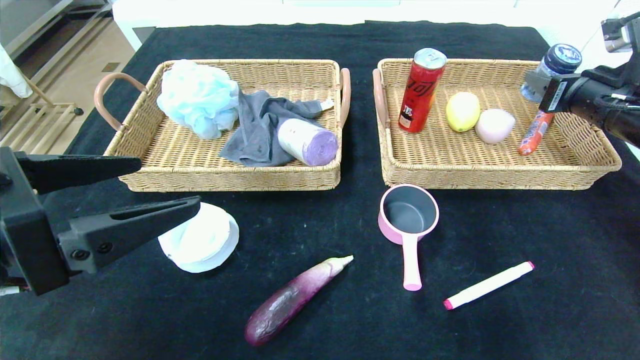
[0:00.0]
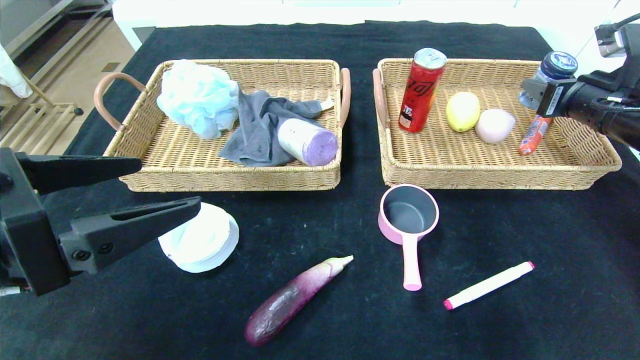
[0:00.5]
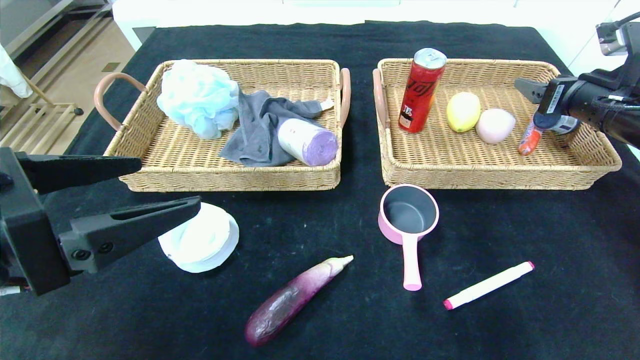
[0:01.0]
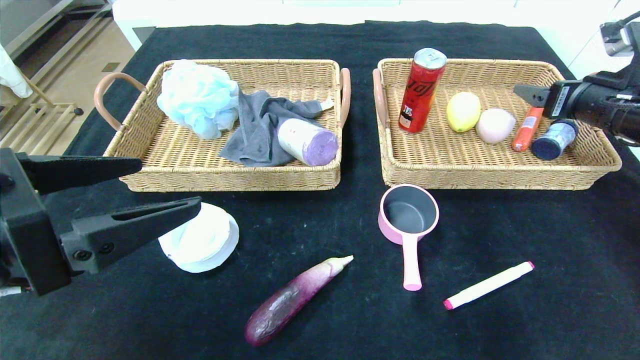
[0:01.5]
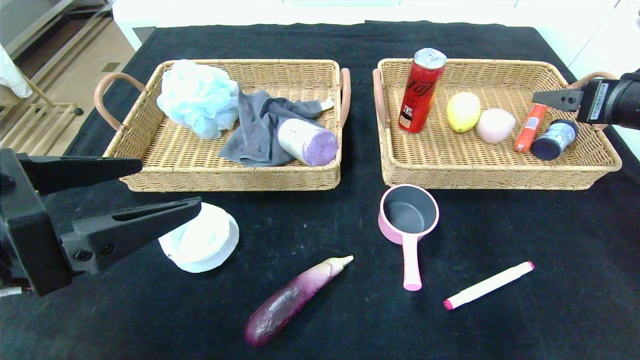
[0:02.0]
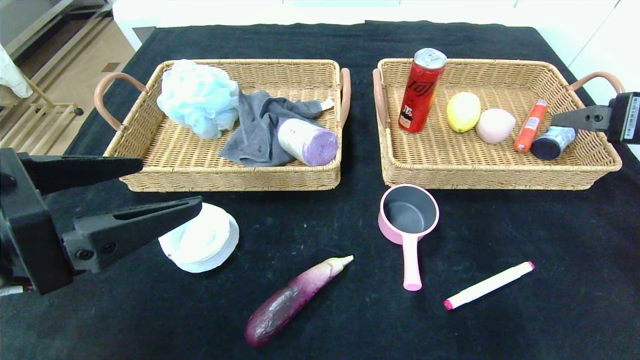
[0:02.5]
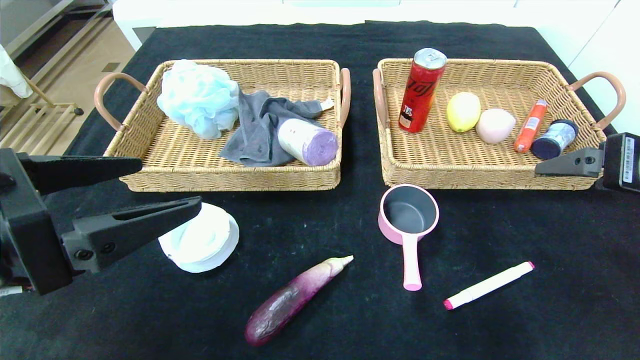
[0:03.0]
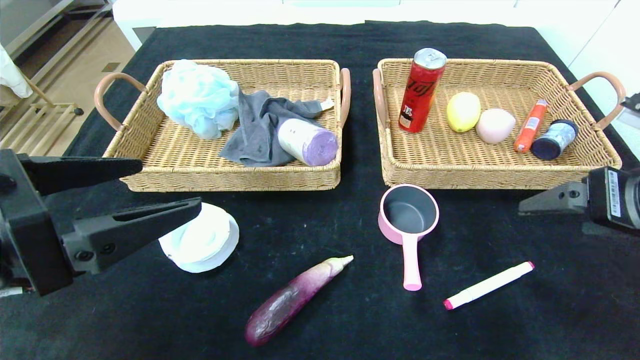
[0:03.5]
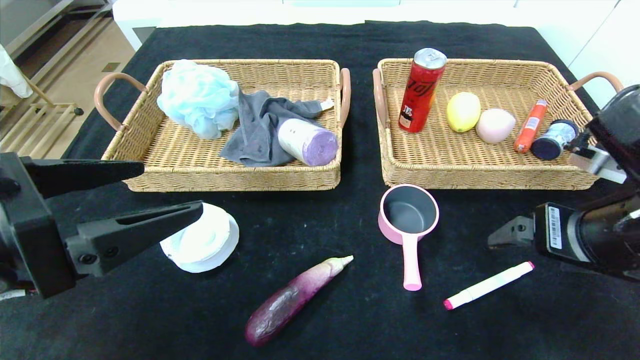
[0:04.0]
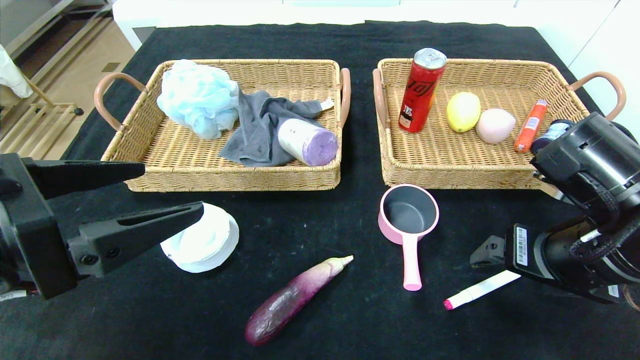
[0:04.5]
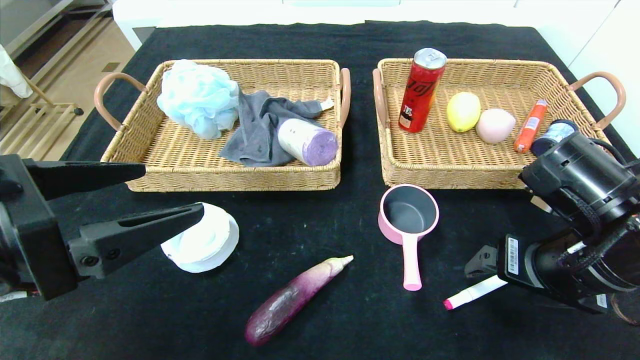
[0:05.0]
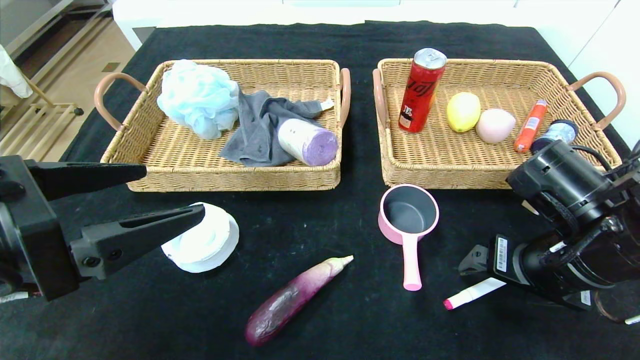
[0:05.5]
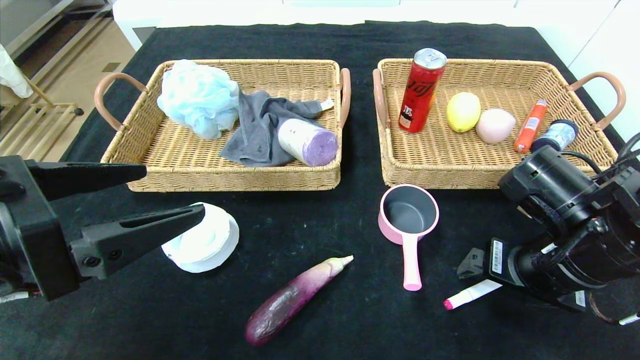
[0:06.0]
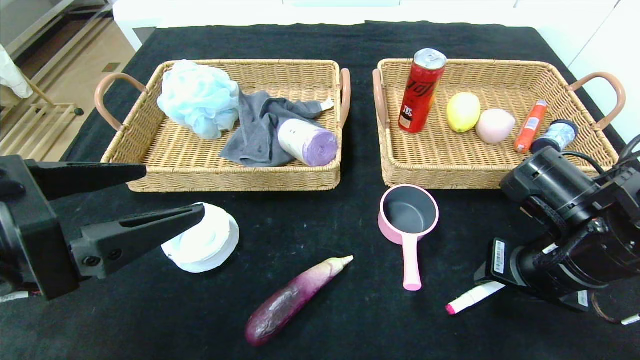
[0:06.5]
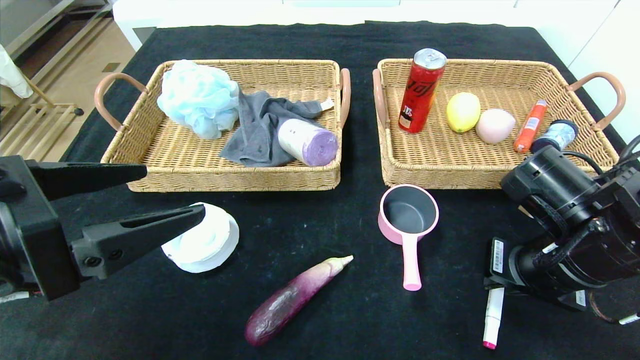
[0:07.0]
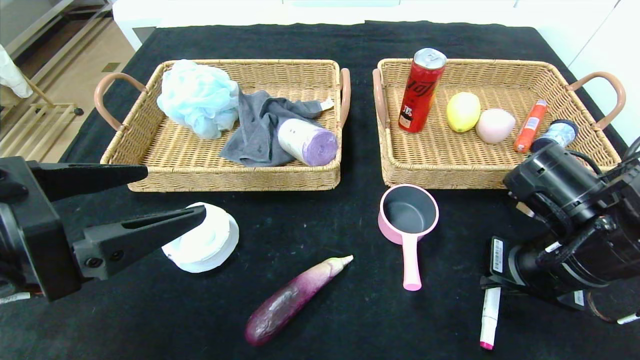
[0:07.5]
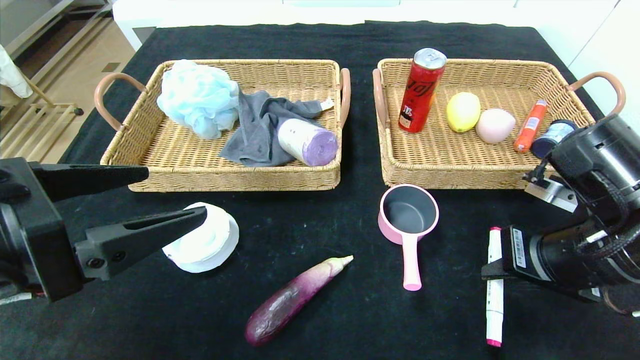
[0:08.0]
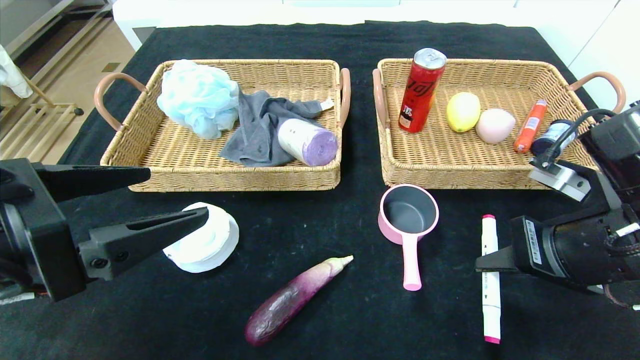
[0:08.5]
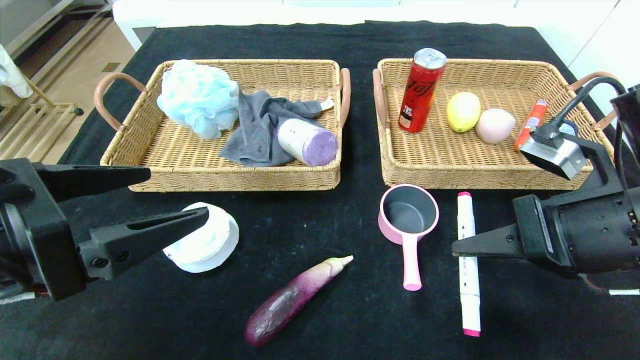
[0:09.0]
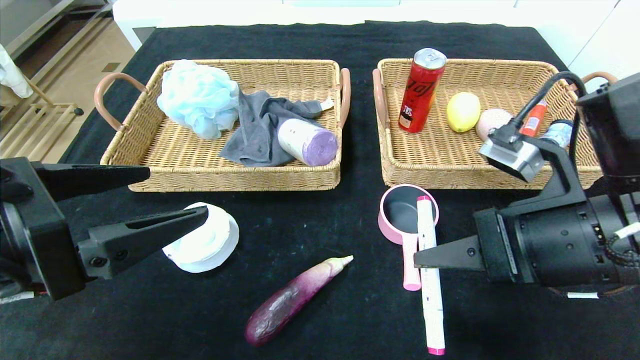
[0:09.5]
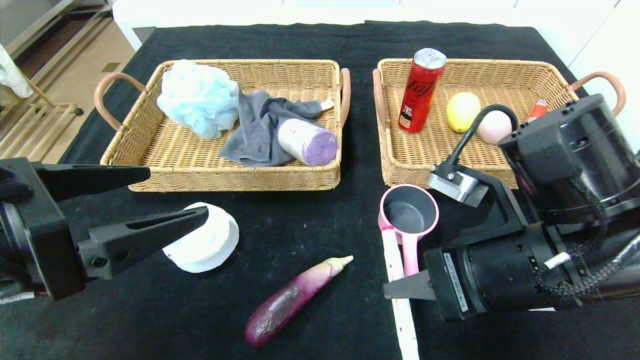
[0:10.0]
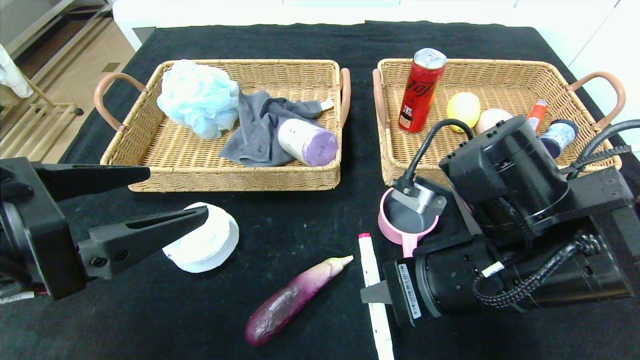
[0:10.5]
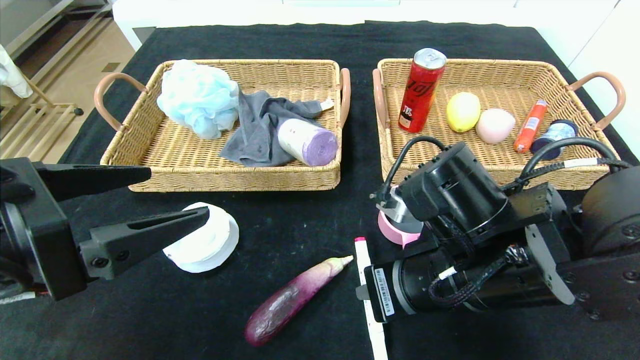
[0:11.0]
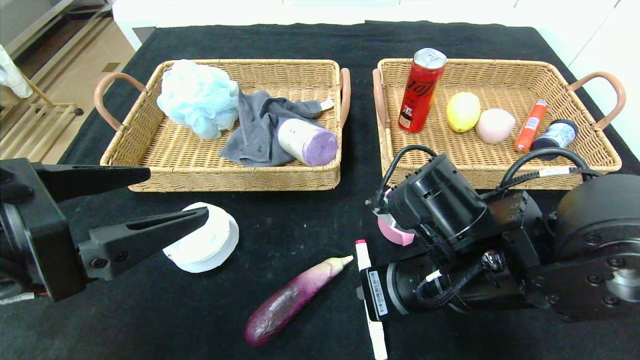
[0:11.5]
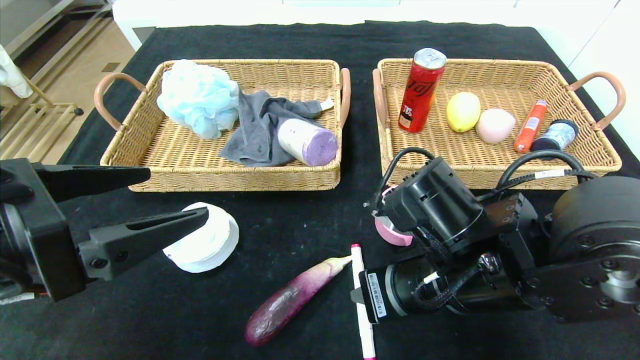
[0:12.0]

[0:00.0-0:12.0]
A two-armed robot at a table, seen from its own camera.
Step, 0:00.0 to 0:05.0: Place the pink marker in the center of the table.
0:00.0 to 0:02.0: The right gripper is displaced backward by approximately 5 cm, and opens up.
0:02.0 to 0:04.0: The right gripper moves to the left, backward and downward, about 15 cm.
0:04.0 to 0:06.0: The right gripper travels downward by some 5 cm.
0:06.0 to 0:08.0: The right gripper closes up.
0:08.0 to 0:10.0: The right gripper travels to the left by approximately 10 cm.
0:10.0 to 0:12.0: The right gripper heads to the left, covering roughly 5 cm.

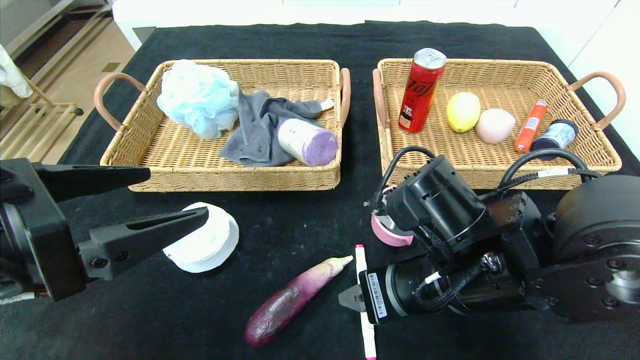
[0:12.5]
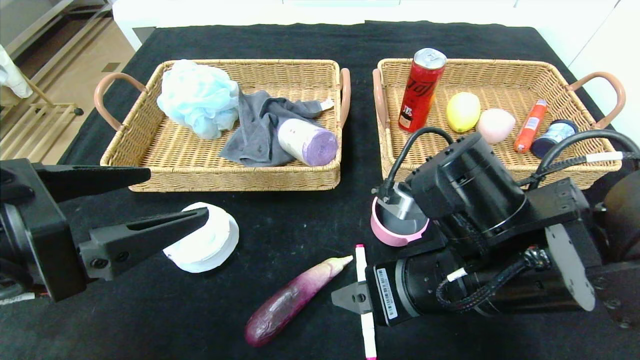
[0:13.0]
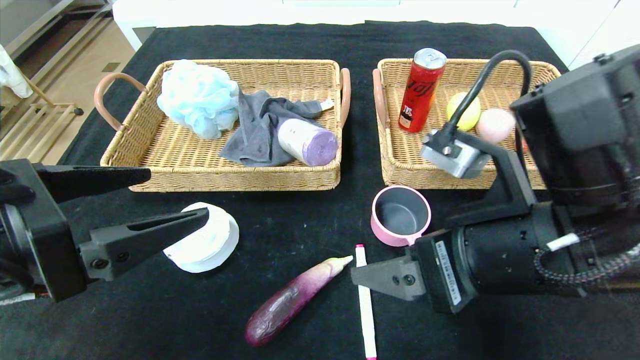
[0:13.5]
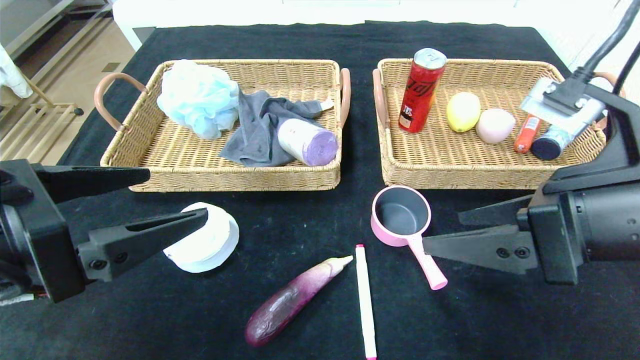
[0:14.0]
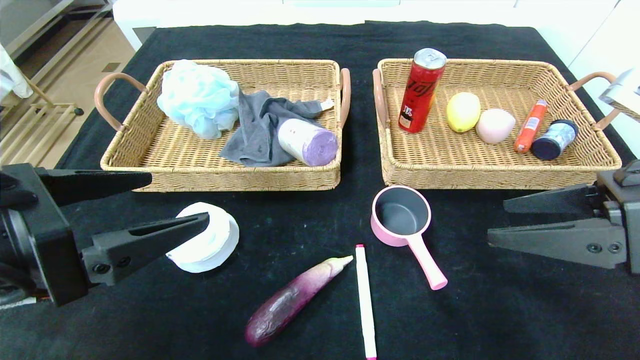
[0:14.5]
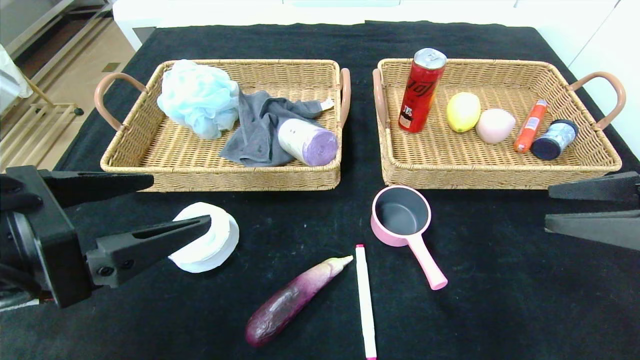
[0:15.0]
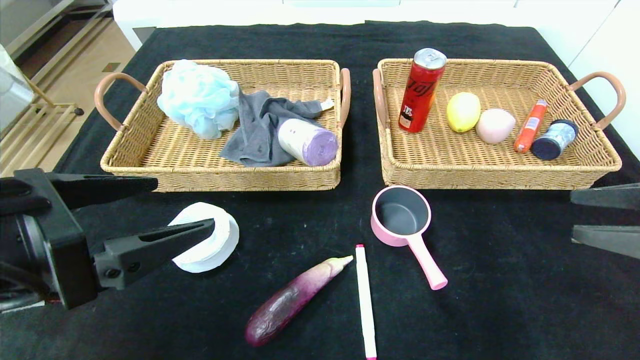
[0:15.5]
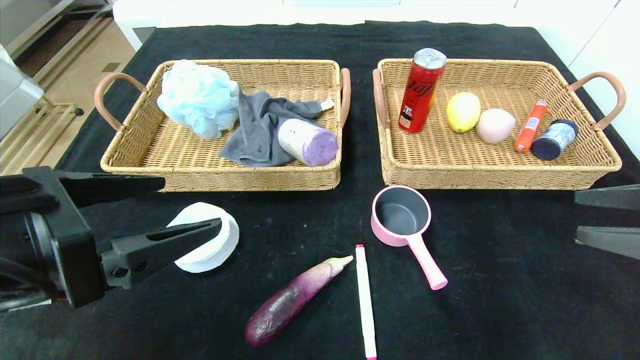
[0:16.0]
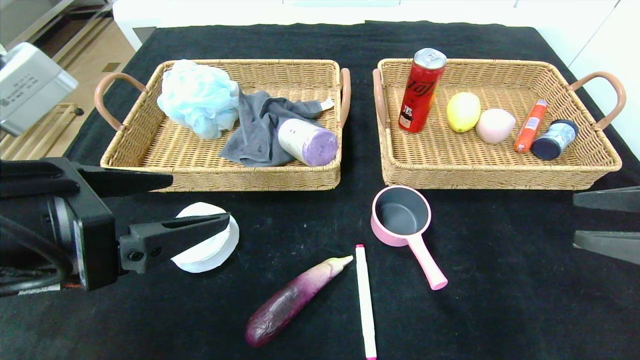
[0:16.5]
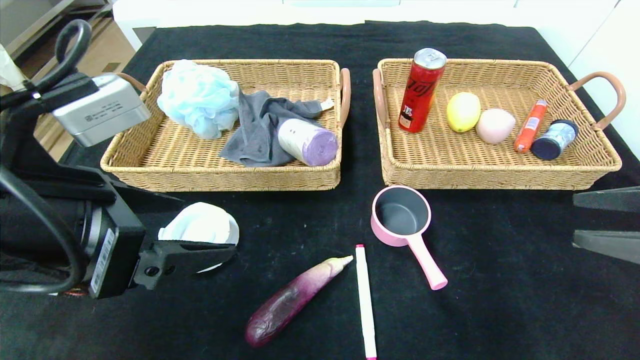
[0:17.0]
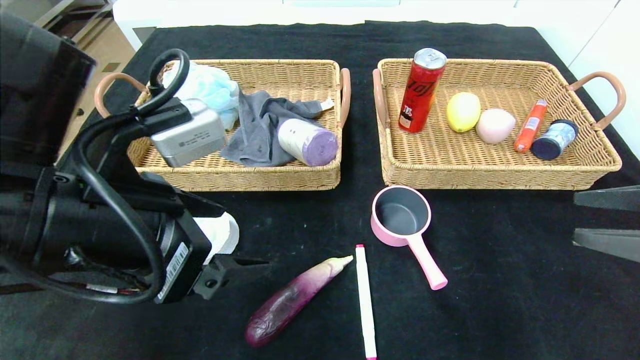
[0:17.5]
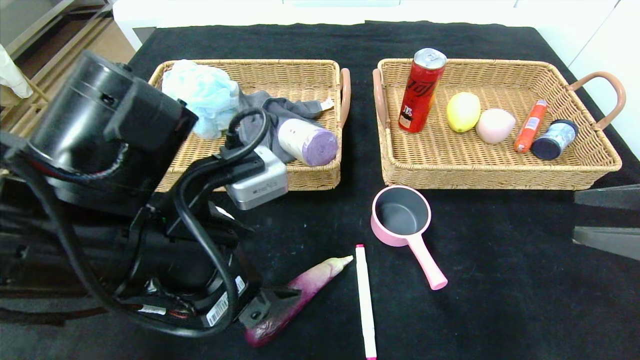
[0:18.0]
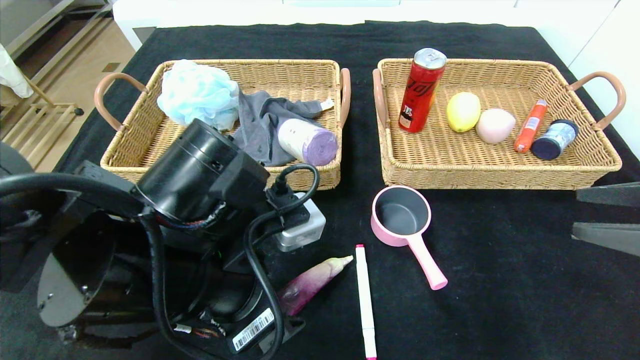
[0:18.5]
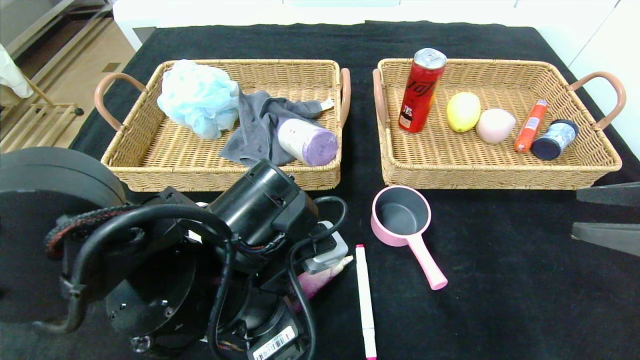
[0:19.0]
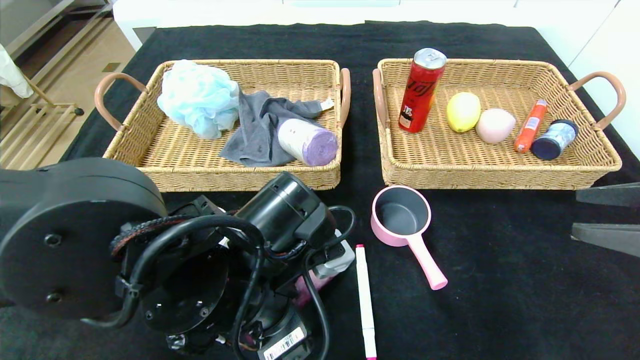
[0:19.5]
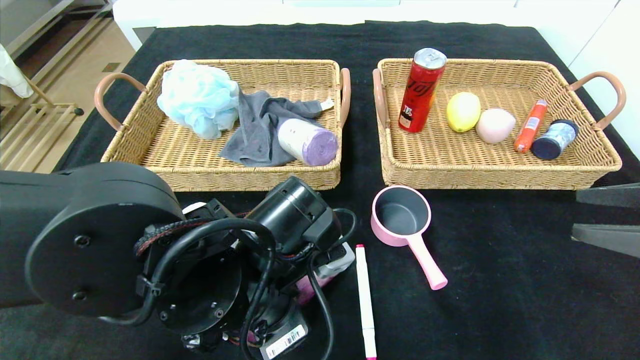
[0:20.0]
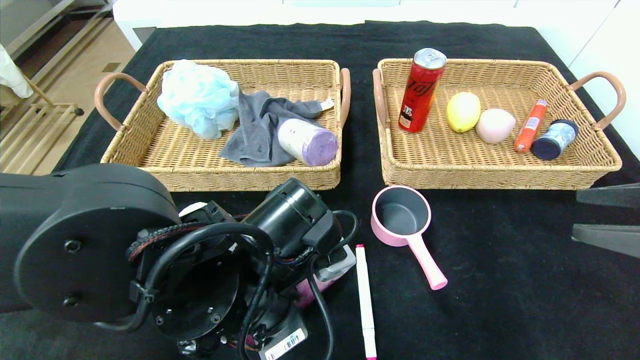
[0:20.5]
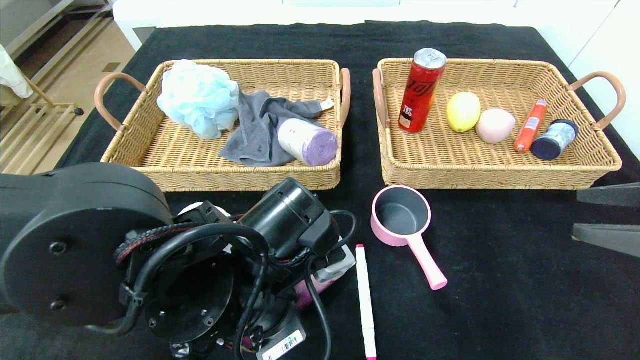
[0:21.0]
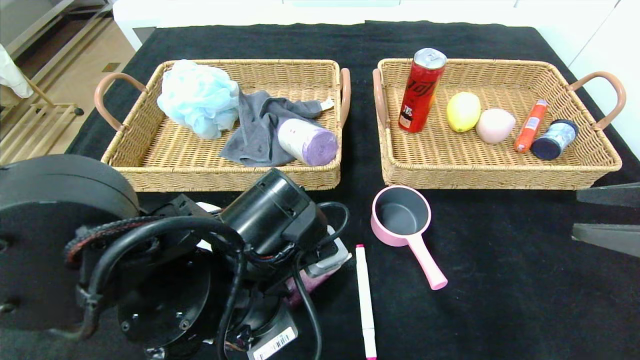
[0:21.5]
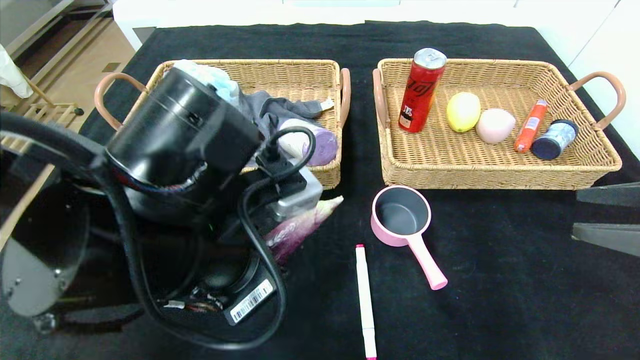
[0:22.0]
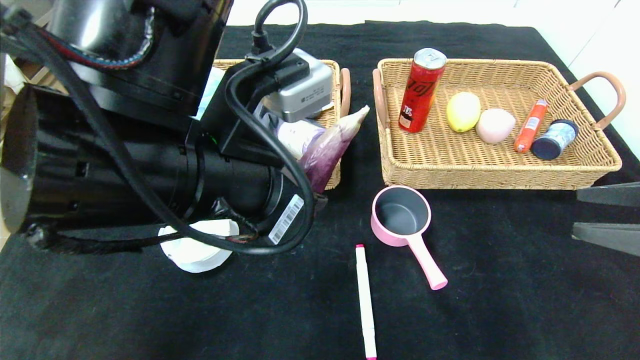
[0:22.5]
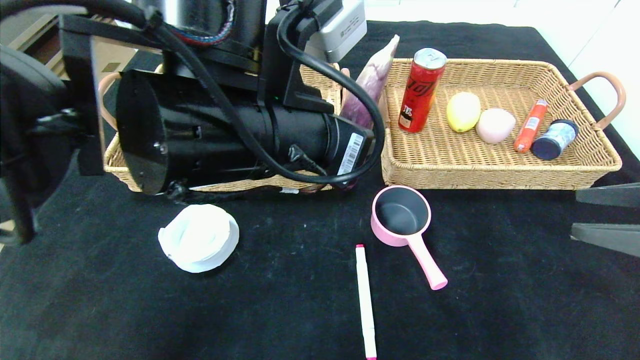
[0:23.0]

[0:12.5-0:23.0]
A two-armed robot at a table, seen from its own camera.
Step, 0:12.5 to 0:18.5: Grasp the eggplant and put it in the right basket.
0:12.5 to 0:14.5: The right gripper heads to the right and upward, covering about 20 cm.
0:14.5 to 0:16.5: The right gripper moves to the right, about 5 cm.
0:16.5 to 0:19.0: The left gripper shifts some 15 cm to the right and downward.
0:19.0 to 0:21.0: The left gripper closes up.
0:21.0 to 0:23.0: The left gripper travels upward by some 15 cm.
